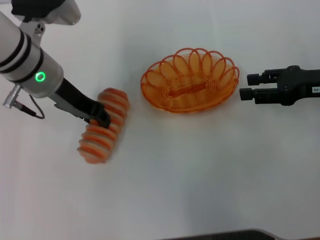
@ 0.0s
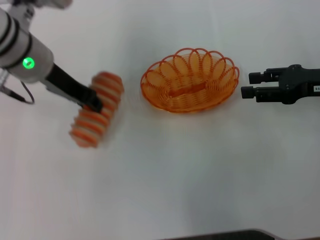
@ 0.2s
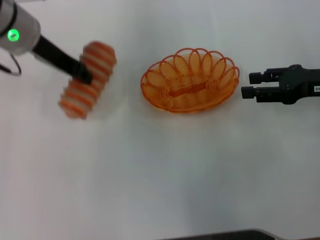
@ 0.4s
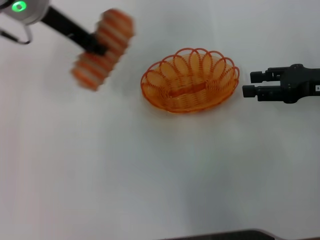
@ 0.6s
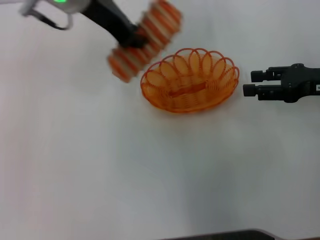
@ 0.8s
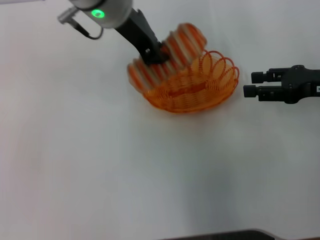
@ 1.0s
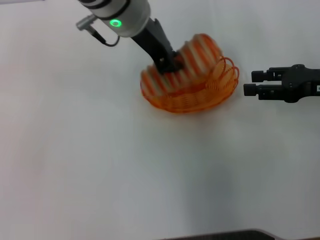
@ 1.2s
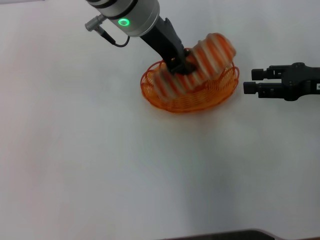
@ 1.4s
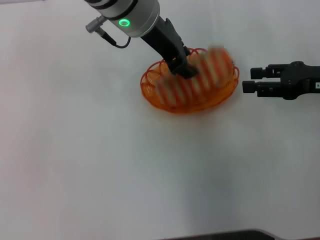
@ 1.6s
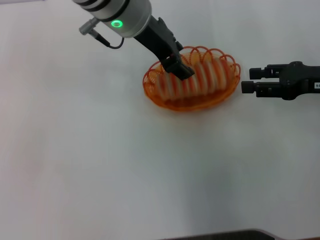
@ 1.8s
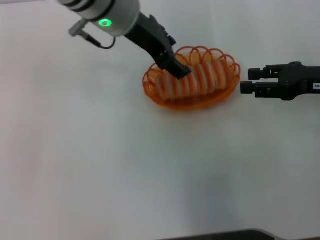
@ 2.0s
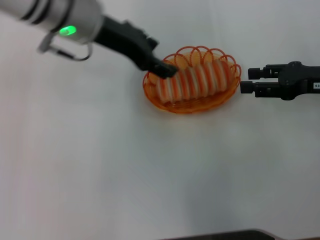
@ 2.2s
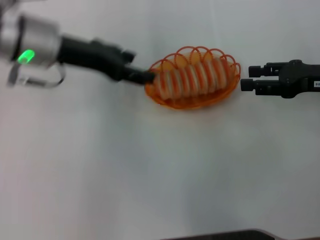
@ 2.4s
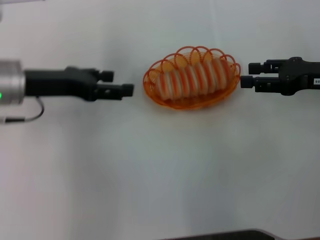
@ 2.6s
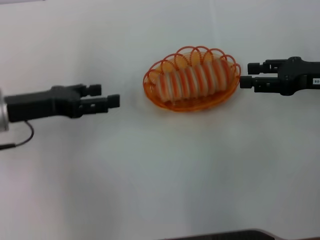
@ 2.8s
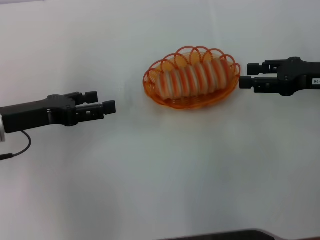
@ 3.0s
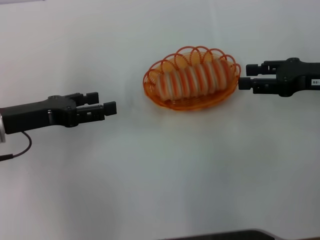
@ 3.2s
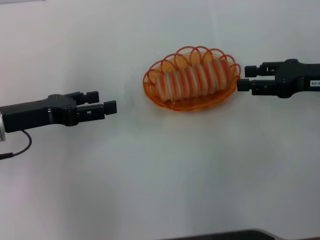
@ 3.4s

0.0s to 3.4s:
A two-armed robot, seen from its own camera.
Step, 0.4s to 2.4s: Place the long bread into the basket with the left gripper.
0.0s to 1.6s: The left gripper travels to the right and upward by some 15 cm.
1.6s to 3.4s: The left gripper is displaced to the left, downward and backward by approximately 25 cm, and opens its fingers.
